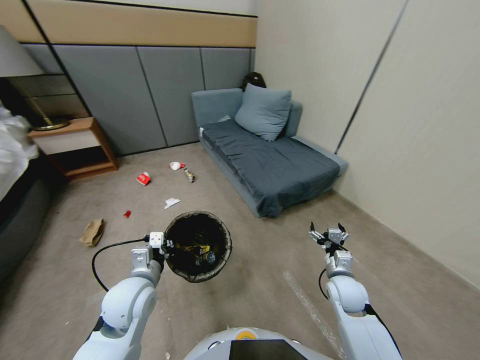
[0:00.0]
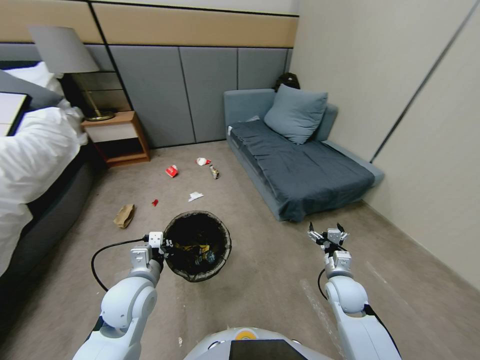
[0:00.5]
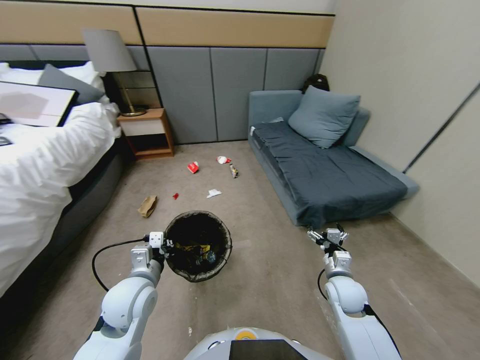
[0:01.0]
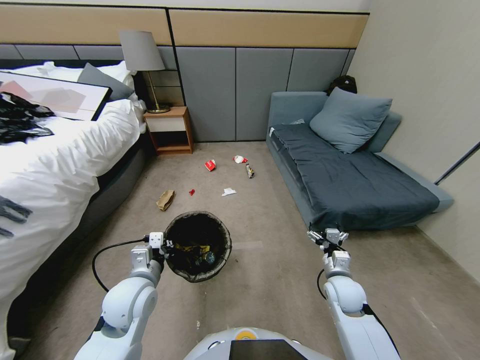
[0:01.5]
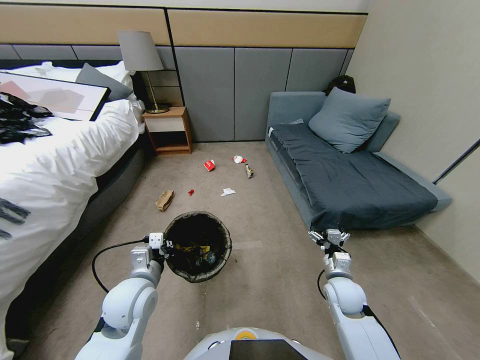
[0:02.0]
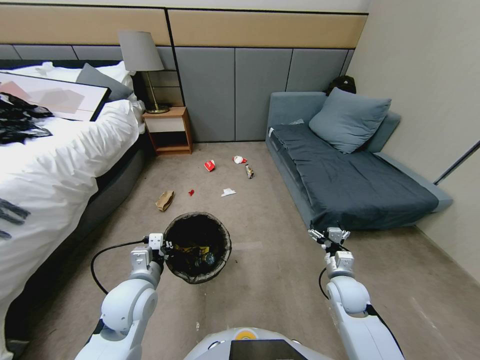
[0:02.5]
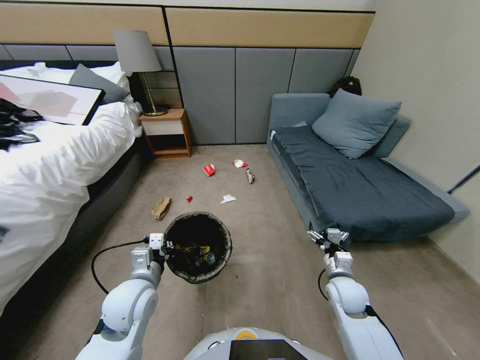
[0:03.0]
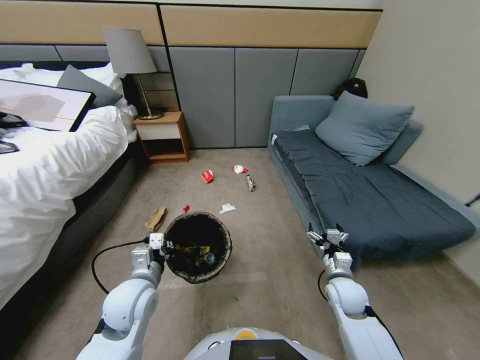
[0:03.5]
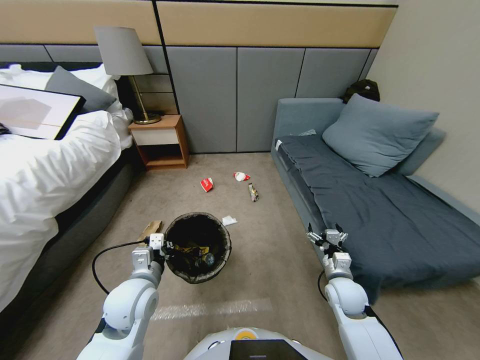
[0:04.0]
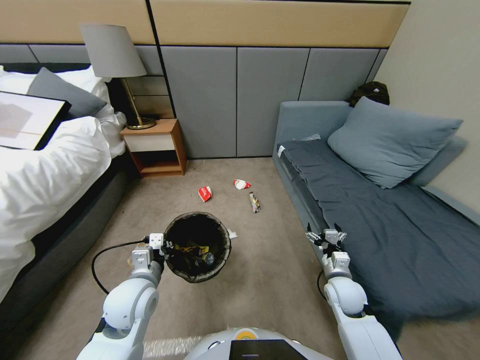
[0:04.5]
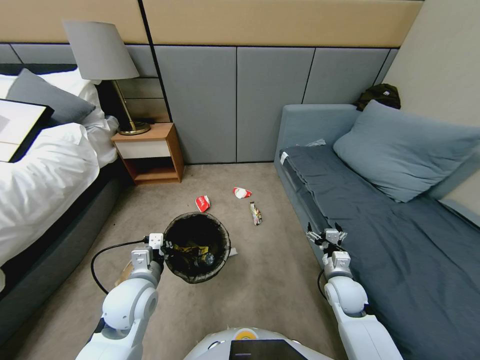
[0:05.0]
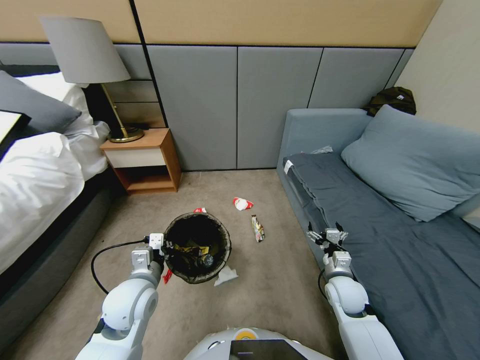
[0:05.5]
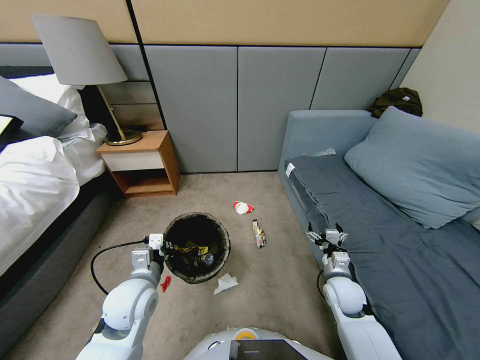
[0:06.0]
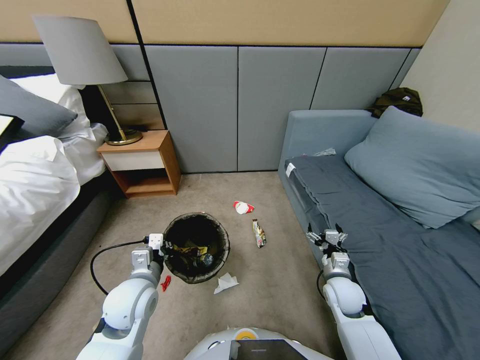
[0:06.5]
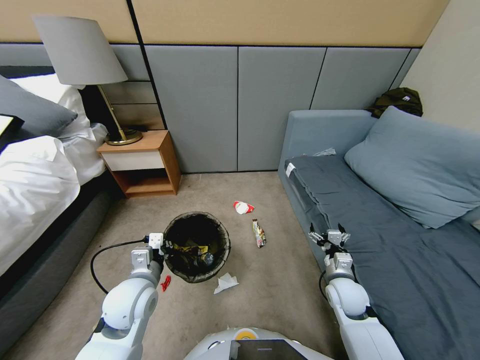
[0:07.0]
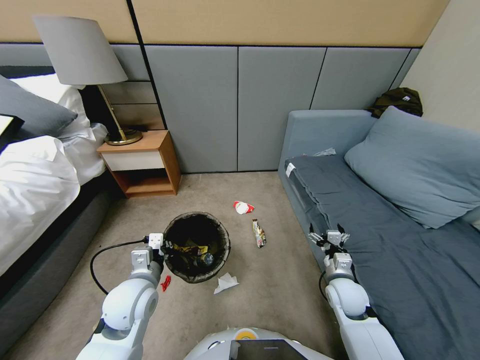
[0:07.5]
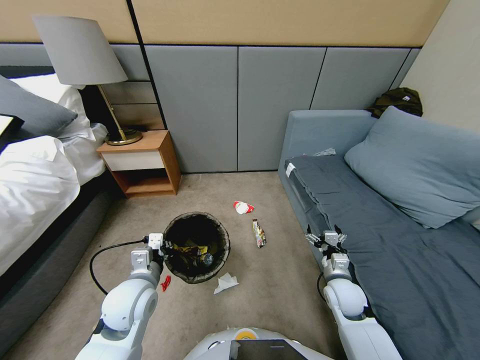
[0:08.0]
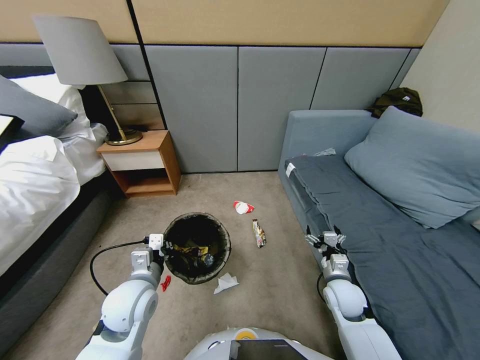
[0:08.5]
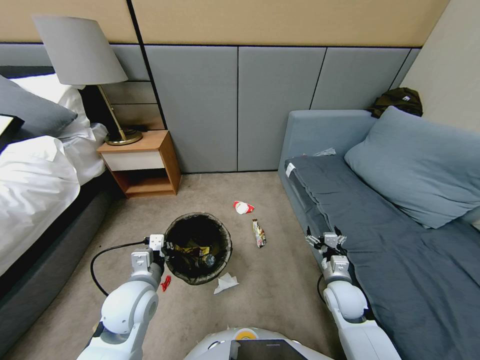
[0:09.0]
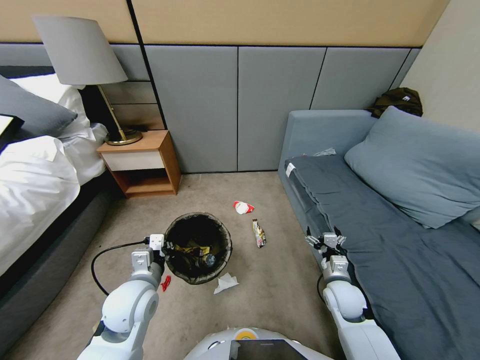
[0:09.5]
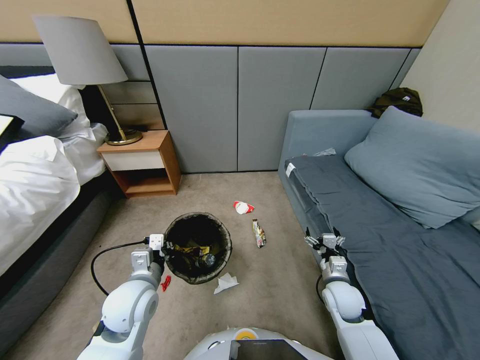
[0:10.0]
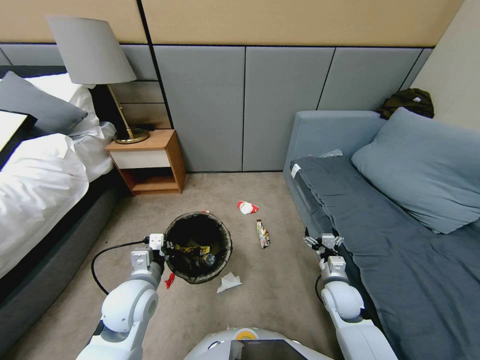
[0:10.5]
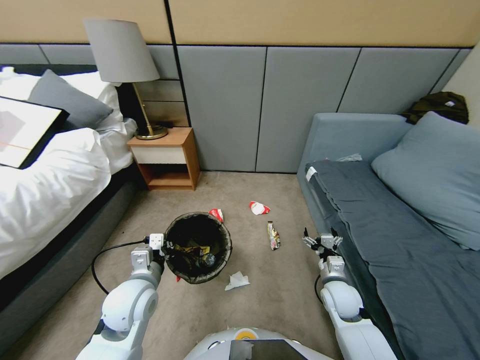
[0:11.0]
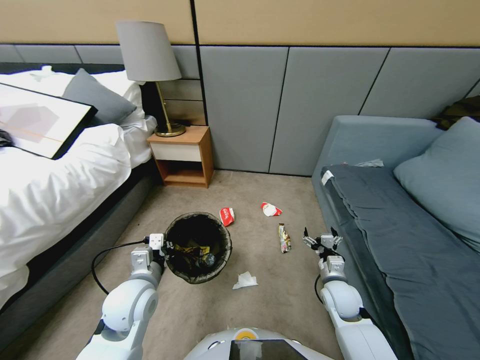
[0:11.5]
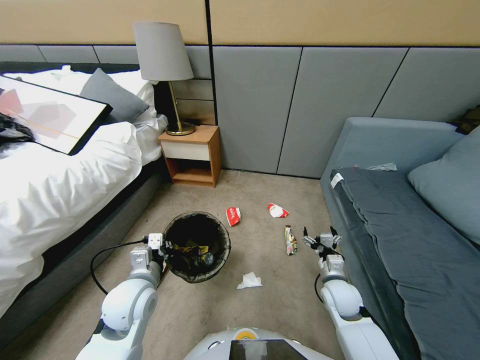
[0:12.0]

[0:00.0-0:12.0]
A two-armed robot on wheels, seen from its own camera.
Task of the whole recording: Pick up the trash bin, then pick up the garbage from the floor and place it into the trash bin.
0:06.0 to 0:10.0: The two grippers keep their place.

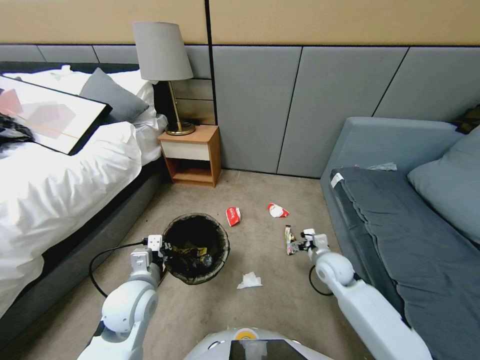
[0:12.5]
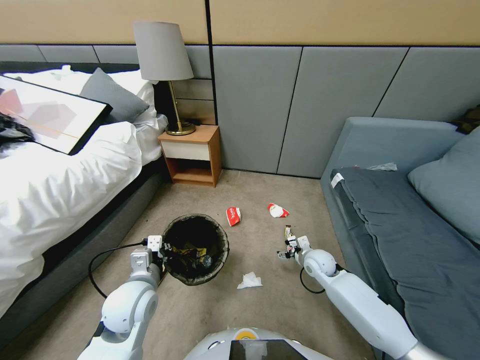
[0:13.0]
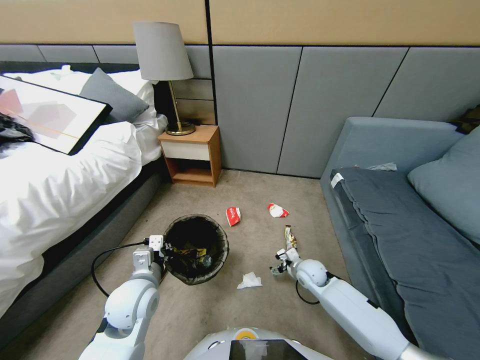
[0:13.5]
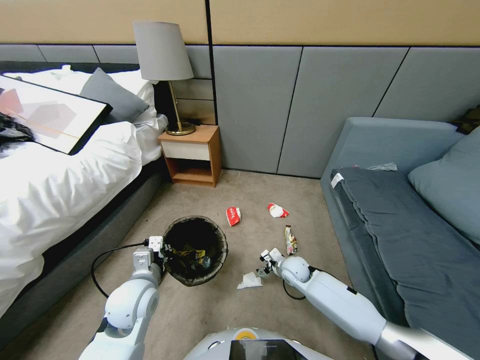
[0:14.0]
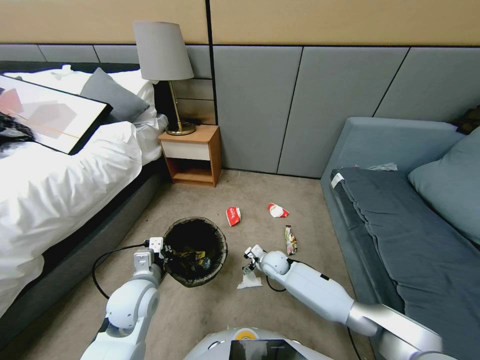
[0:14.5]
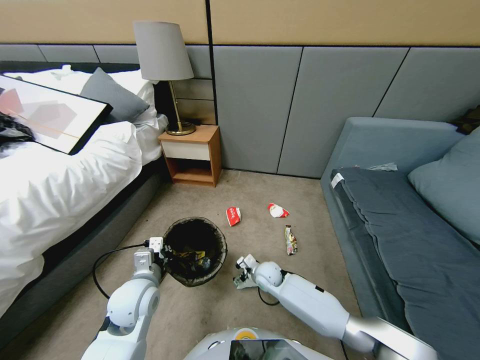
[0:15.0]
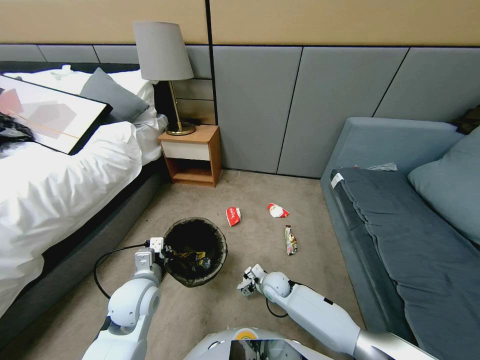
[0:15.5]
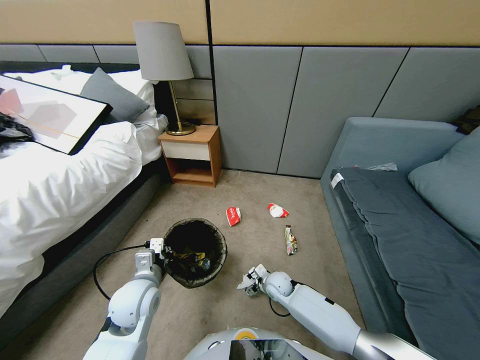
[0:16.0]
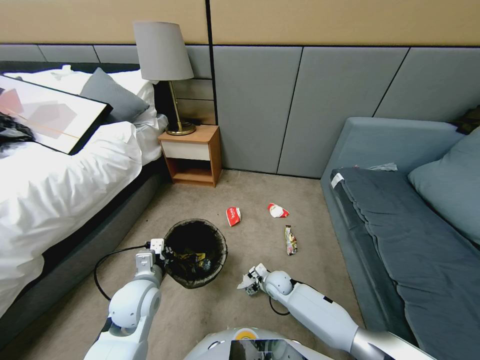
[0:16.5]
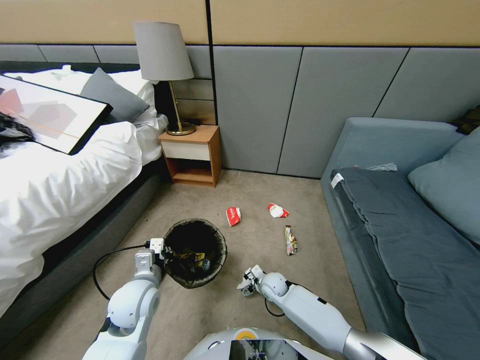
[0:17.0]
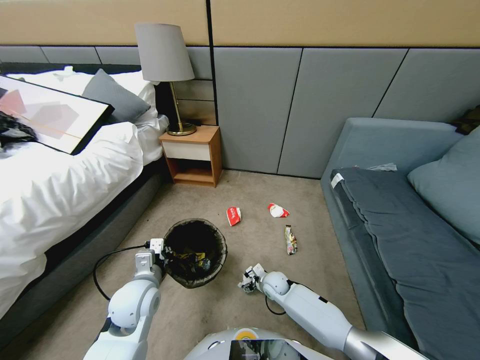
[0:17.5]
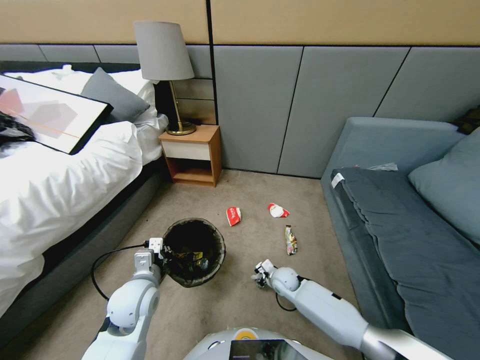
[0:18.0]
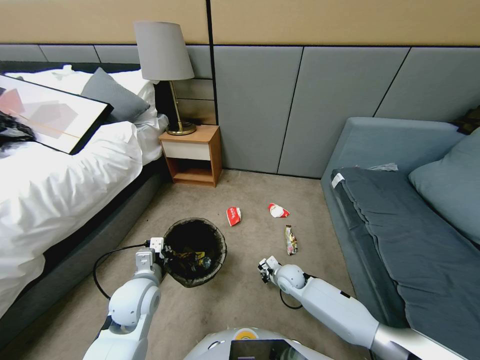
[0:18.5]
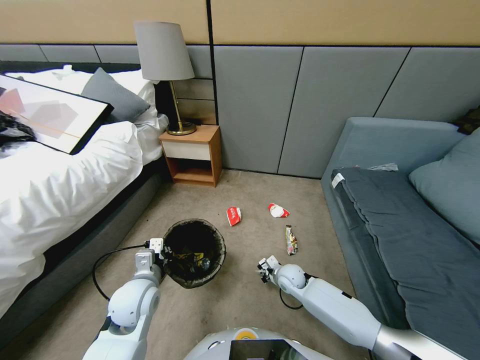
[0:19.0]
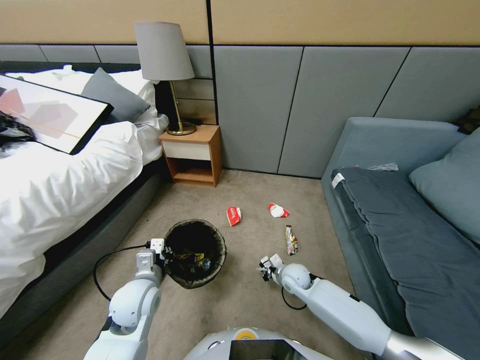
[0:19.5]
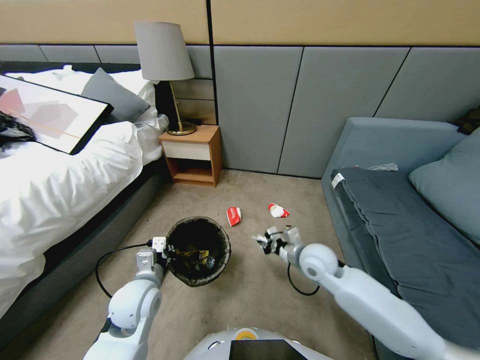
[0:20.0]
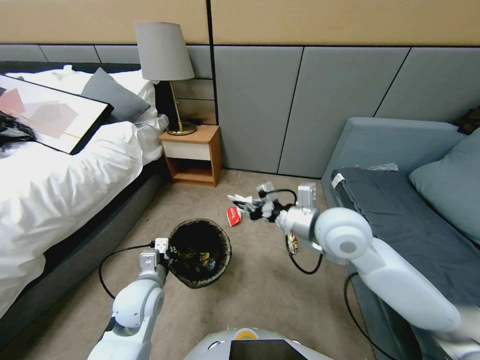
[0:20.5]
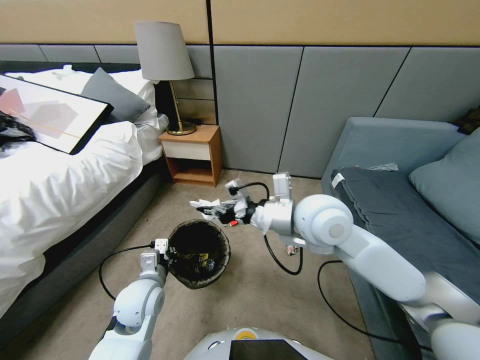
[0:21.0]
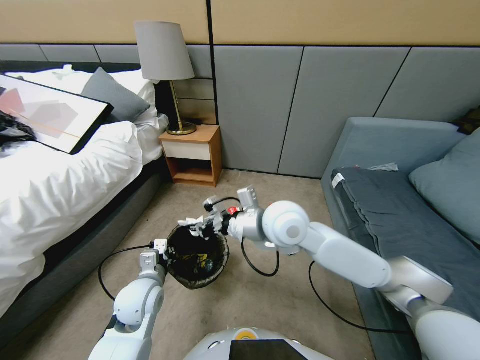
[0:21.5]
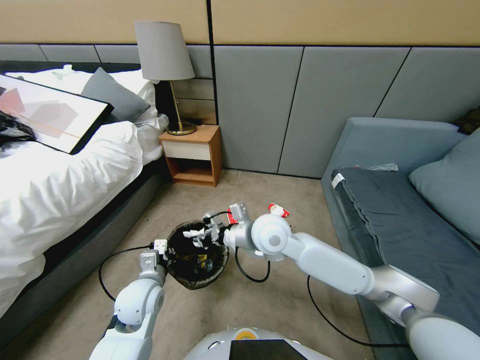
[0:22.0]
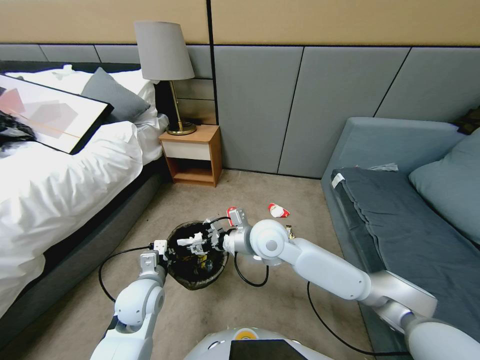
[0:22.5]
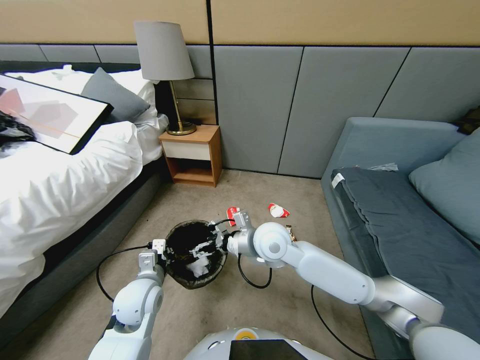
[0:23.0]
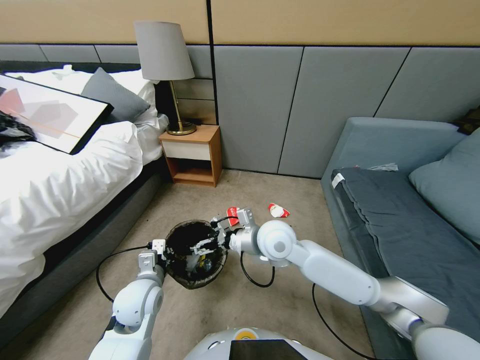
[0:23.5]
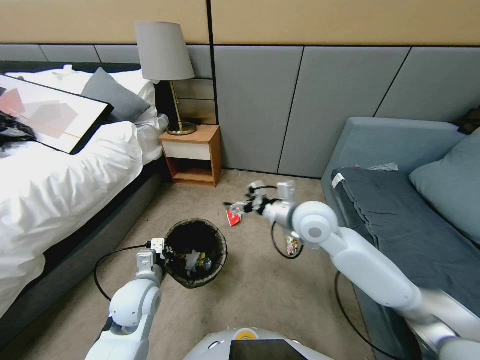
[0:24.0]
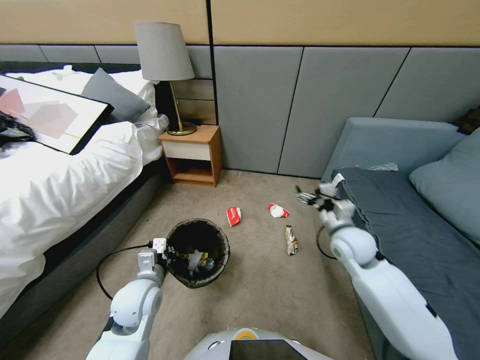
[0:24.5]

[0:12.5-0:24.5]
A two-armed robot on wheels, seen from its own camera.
Task of the whole recording: Pick up the trash bin, then pick up the garbage from the floor and place it into the trash bin.
0:12.5 to 0:14.5: The right gripper is displaced to the left and downward by roughly 20 cm.
0:14.5 to 0:16.5: The right gripper travels downward and backward by roughly 10 cm.
0:16.5 to 0:18.5: The right gripper shifts by about 5 cm, and closes up.
0:18.5 to 0:20.5: The right gripper moves upward, about 40 cm.
0:20.5 to 0:22.5: The right gripper heads to the left and downward, covering some 15 cm, and opens up.
0:22.5 to 0:24.5: The right gripper moves to the right, approximately 25 cm.

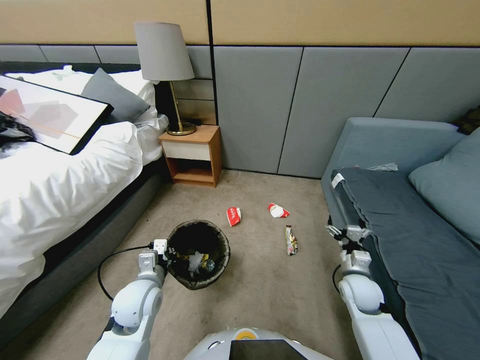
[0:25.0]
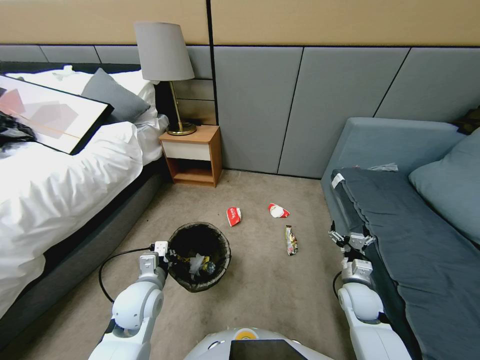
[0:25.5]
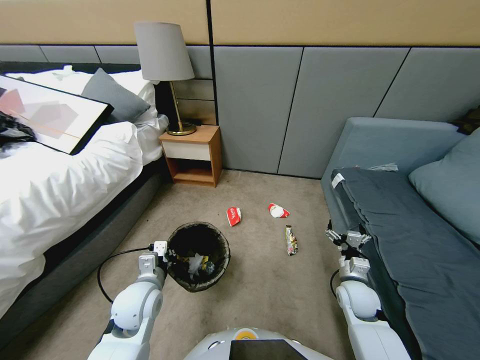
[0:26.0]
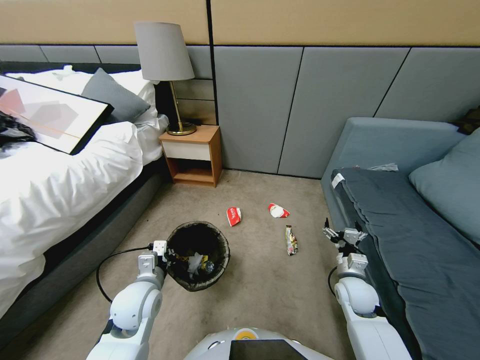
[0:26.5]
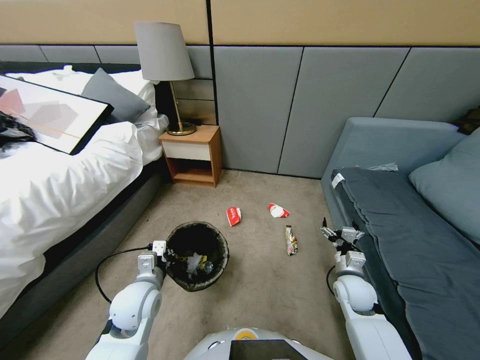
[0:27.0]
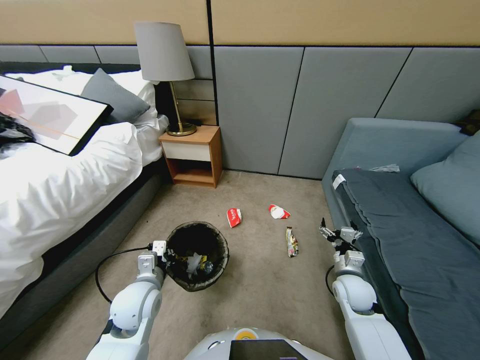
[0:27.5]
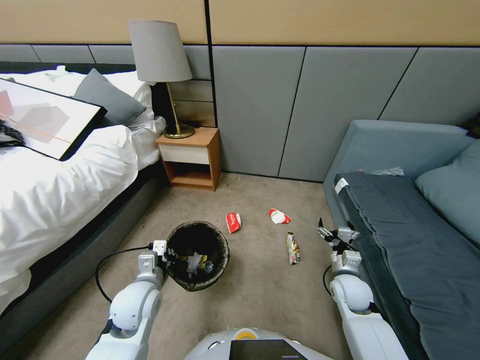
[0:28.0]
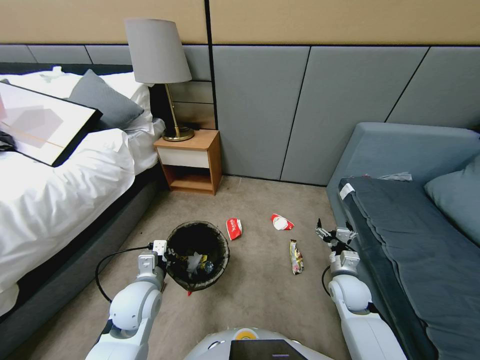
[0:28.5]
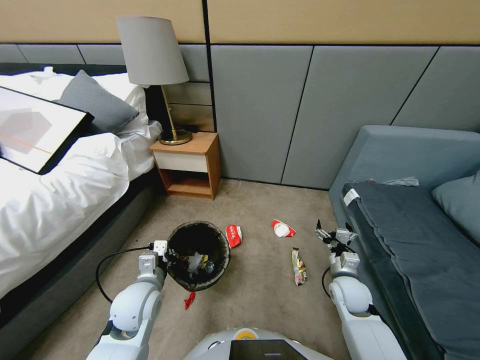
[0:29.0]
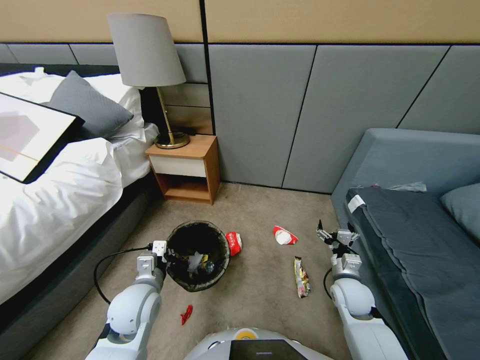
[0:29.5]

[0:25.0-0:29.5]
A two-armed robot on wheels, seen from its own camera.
Task of the whole recording: Pick up the trash bin, then pick up the garbage from the floor and place it into the trash bin.
0:25.0 to 0:27.0: The grippers move only a little.
